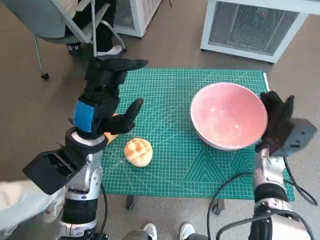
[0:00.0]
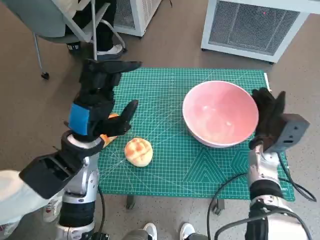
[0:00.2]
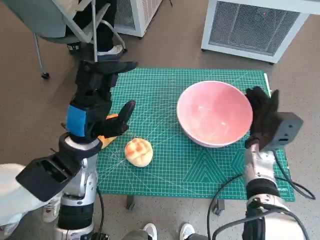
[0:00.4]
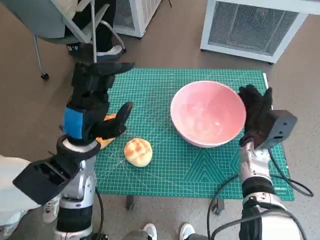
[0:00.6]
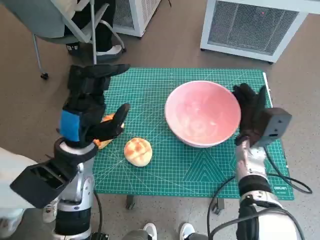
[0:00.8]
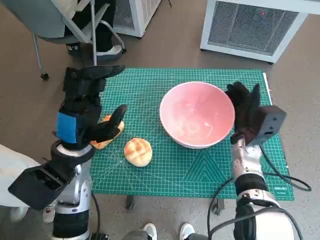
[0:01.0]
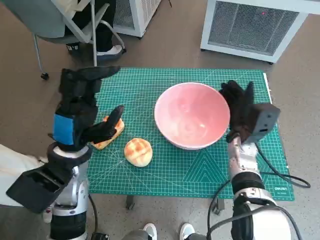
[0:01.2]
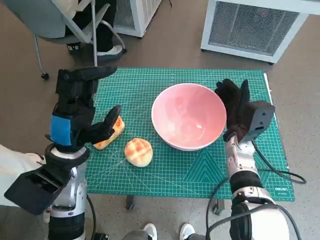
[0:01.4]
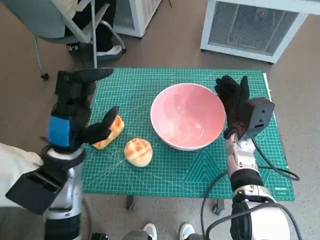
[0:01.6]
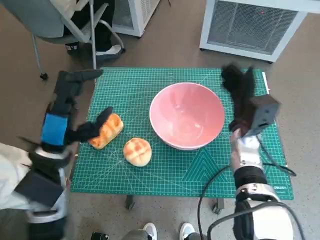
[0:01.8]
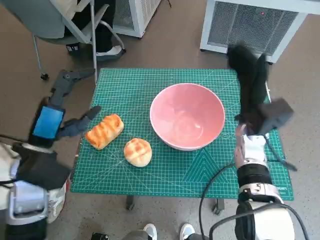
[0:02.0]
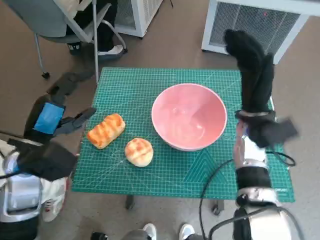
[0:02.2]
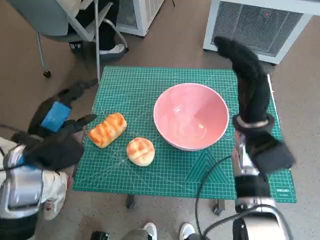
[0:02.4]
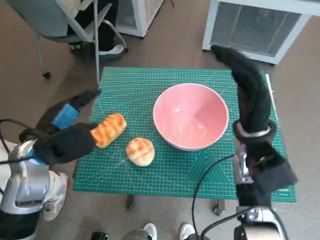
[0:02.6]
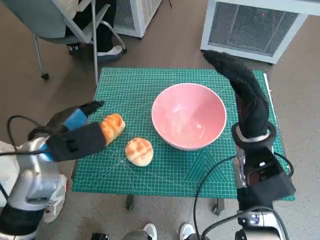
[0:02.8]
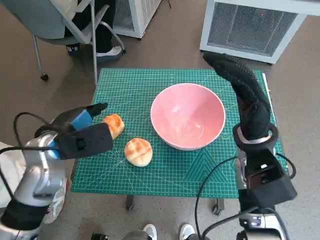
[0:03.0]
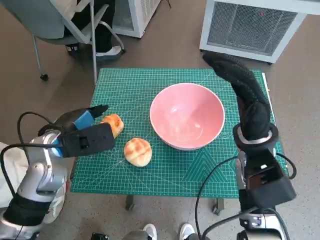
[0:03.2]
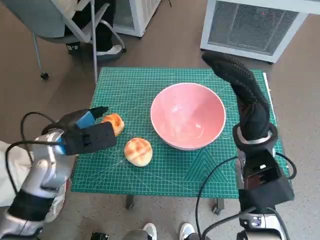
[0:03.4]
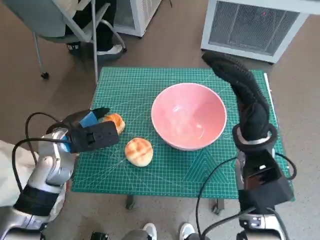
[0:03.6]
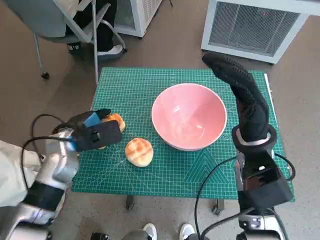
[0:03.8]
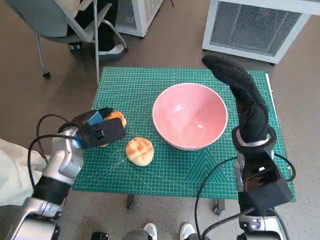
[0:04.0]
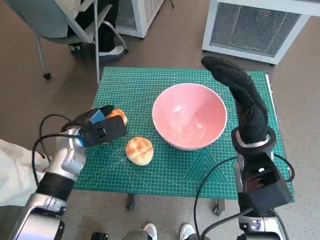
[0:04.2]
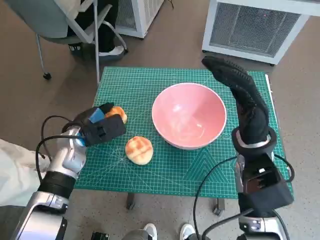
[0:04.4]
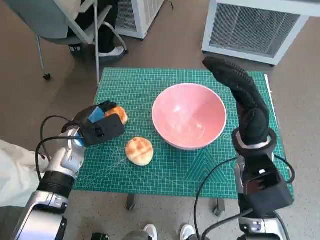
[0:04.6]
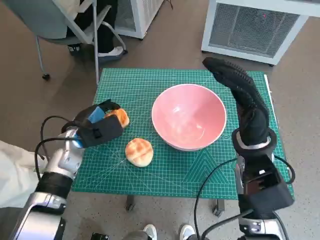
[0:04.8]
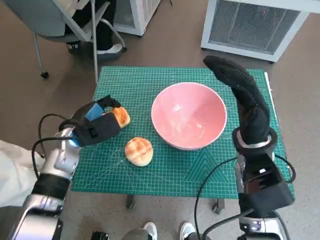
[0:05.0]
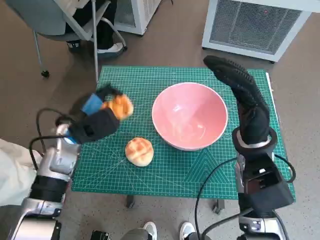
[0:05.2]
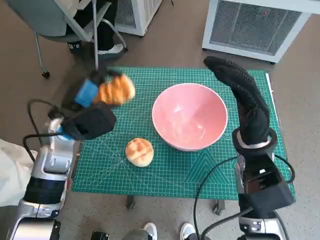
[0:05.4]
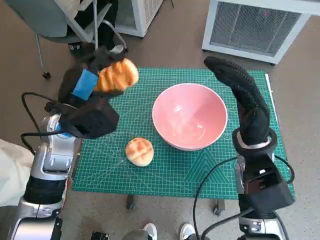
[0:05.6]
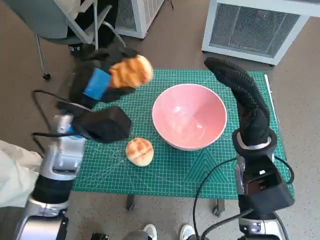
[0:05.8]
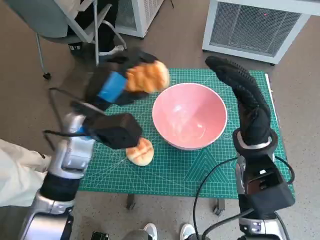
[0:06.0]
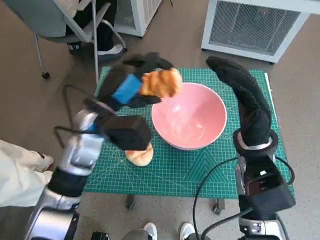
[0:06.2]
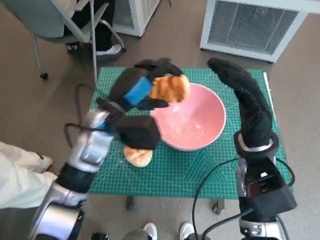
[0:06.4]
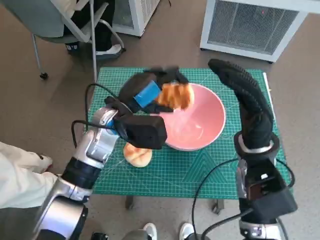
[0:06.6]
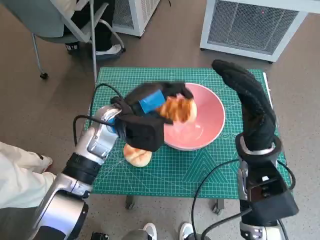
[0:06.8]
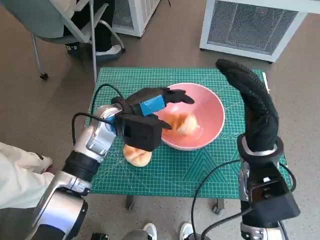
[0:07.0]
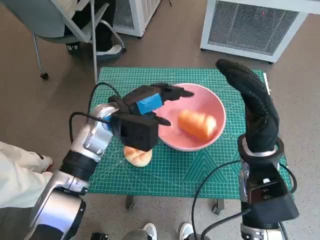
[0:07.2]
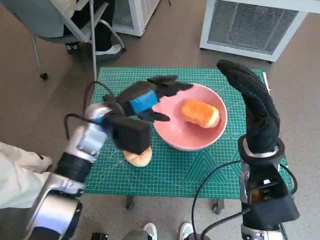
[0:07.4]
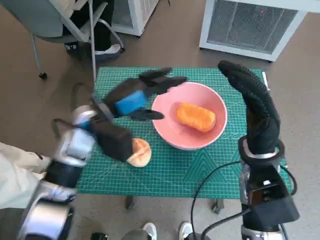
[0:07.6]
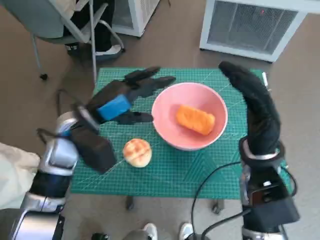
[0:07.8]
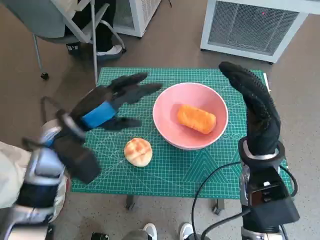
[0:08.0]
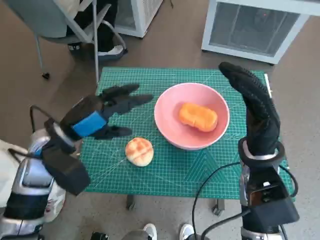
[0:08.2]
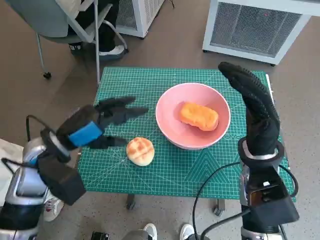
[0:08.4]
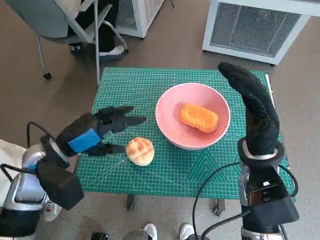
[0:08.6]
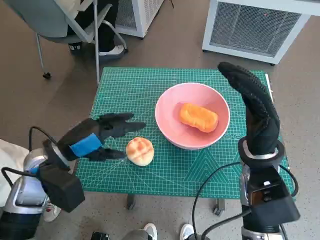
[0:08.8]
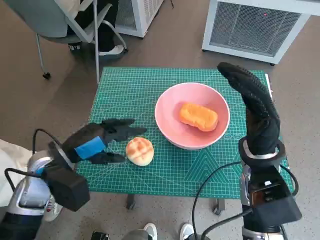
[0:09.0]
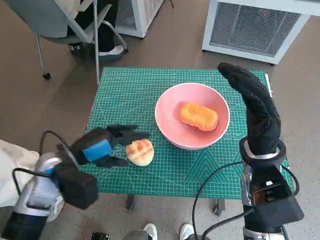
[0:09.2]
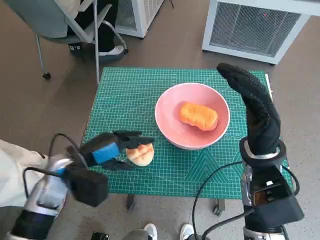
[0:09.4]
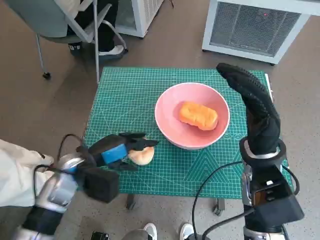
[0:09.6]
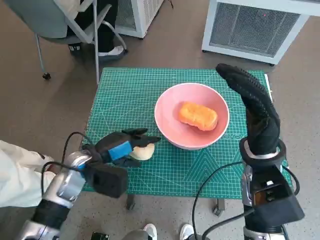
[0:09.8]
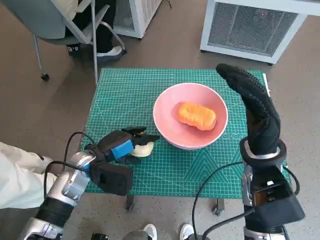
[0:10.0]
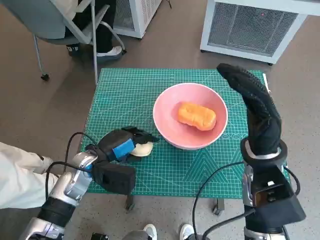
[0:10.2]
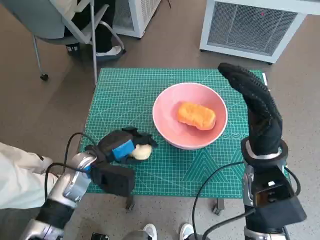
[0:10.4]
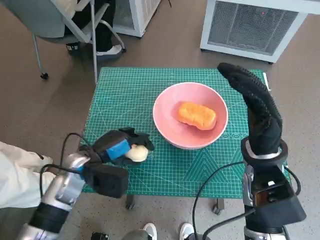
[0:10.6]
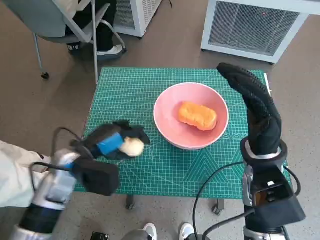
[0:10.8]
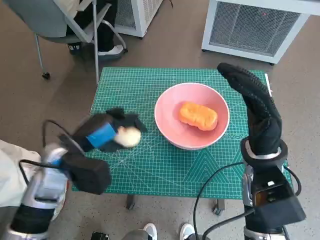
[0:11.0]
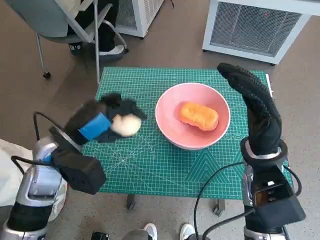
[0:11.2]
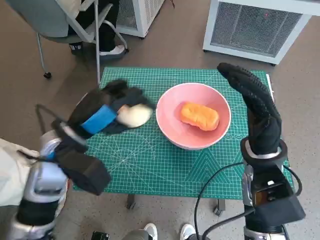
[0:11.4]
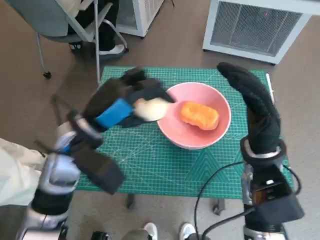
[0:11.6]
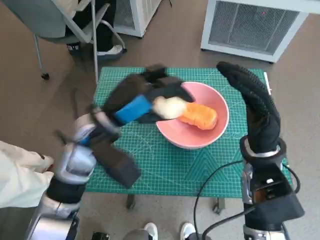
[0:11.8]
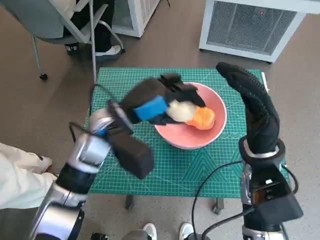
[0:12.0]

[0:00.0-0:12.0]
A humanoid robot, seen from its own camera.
Task of the whole recording: Push the bowl to the center of the table and put the bread into the bowl.
Step, 0:02.0 to 0:04.2: Grasp the long bread with left hand.
Step, 0:04.6 to 0:07.8: Place the long bread in pink bowl with left hand.
Step, 0:08.0 to 0:10.0: Grasp the round bread with left hand.
0:00.0 to 0:01.6: The right hand goes about 5 cm to the left.
0:01.6 to 0:03.0: The right hand travels upward by roughly 10 cm.
0:03.0 to 0:04.4: The left hand is displaced downward and forward by about 10 cm.
0:04.4 to 0:06.0: The left hand is displaced upward and to the right by roughly 10 cm.
0:07.6 to 0:09.0: The left hand moves to the left and backward, approximately 10 cm.
0:09.0 to 0:10.4: The left hand heads downward, covering about 5 cm.
0:10.4 to 0:12.0: The left hand moves upward and to the right, roughly 15 cm.

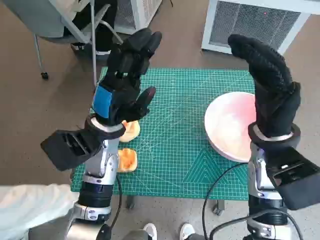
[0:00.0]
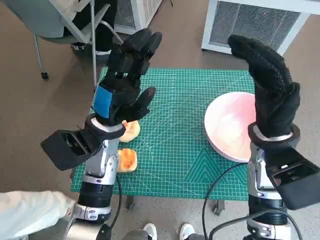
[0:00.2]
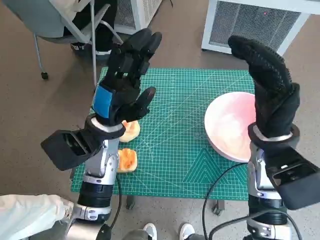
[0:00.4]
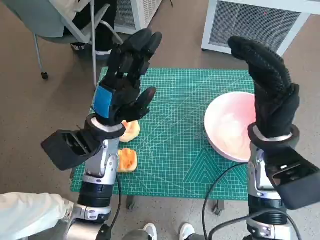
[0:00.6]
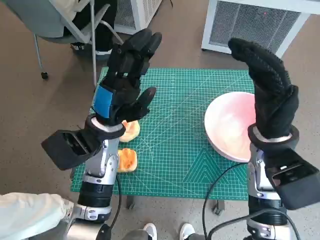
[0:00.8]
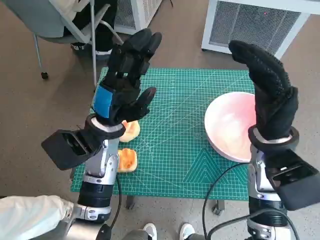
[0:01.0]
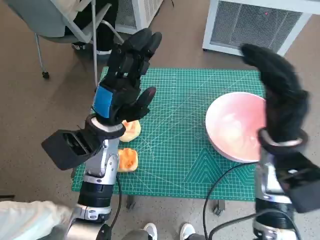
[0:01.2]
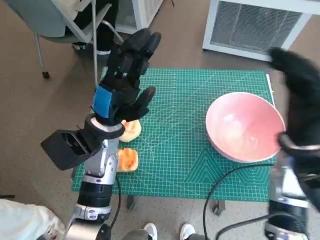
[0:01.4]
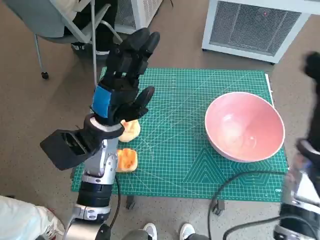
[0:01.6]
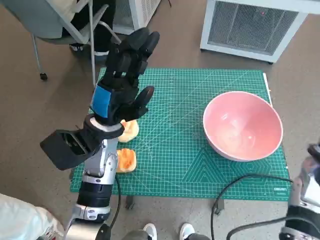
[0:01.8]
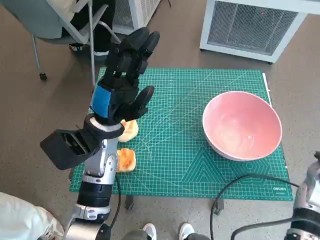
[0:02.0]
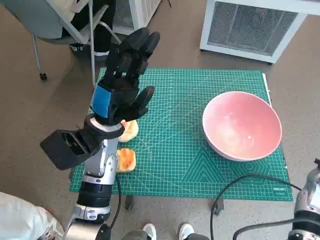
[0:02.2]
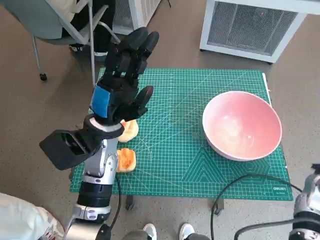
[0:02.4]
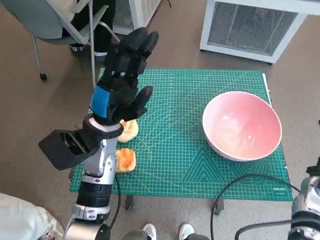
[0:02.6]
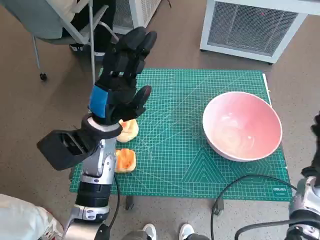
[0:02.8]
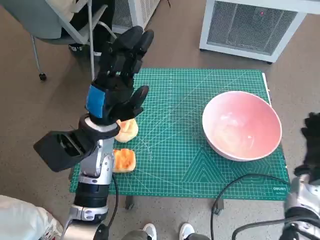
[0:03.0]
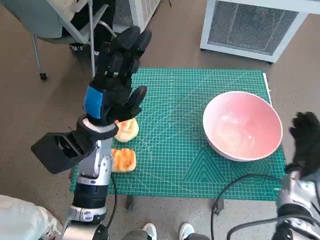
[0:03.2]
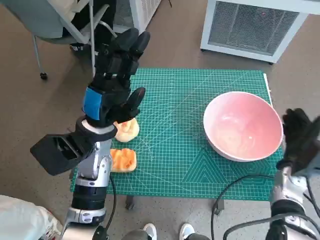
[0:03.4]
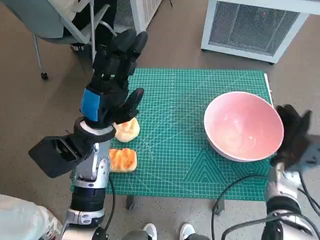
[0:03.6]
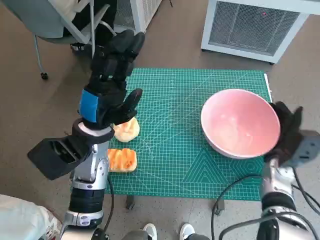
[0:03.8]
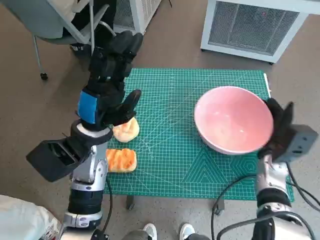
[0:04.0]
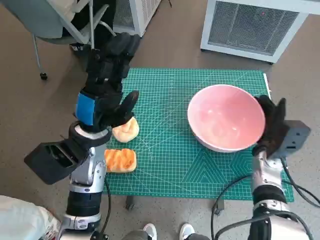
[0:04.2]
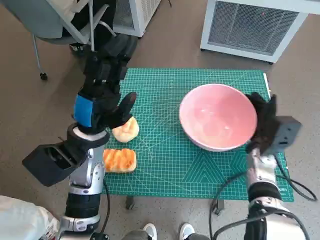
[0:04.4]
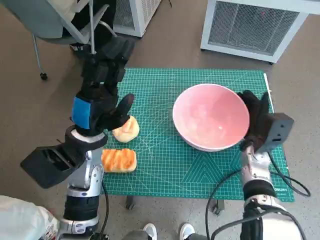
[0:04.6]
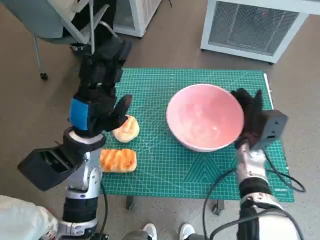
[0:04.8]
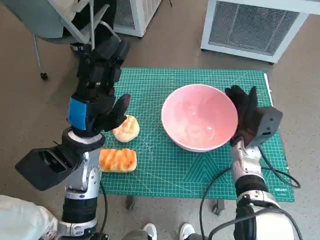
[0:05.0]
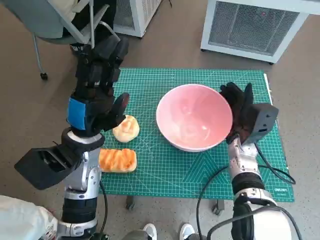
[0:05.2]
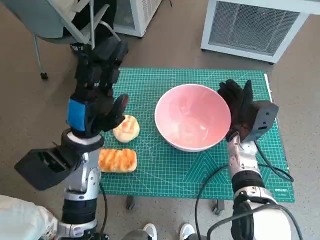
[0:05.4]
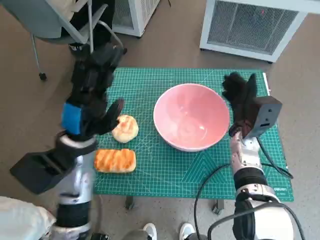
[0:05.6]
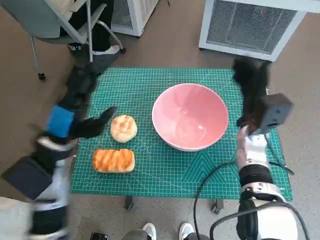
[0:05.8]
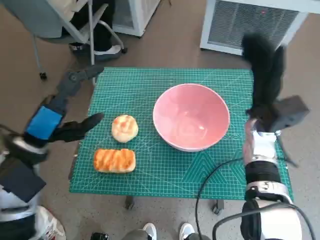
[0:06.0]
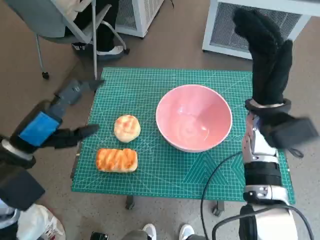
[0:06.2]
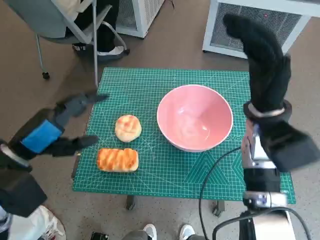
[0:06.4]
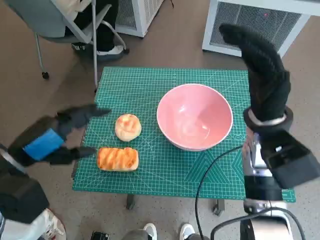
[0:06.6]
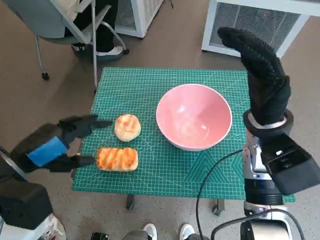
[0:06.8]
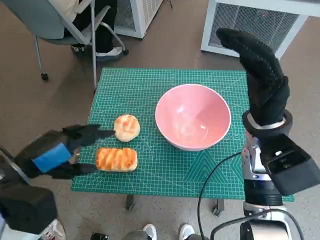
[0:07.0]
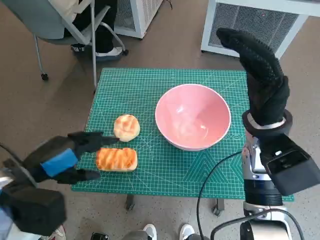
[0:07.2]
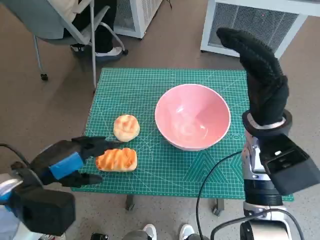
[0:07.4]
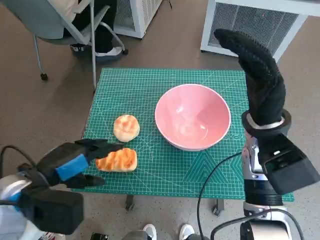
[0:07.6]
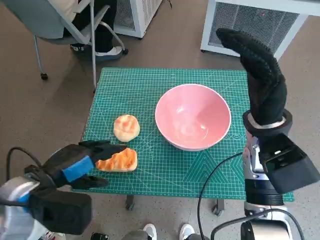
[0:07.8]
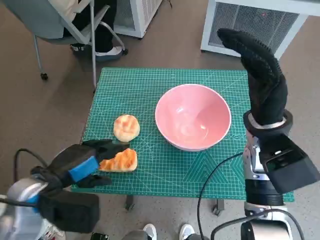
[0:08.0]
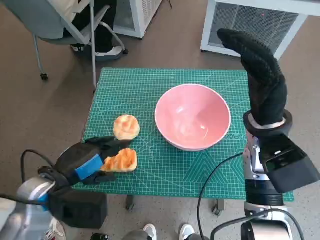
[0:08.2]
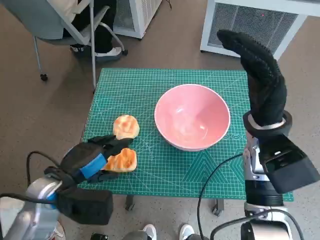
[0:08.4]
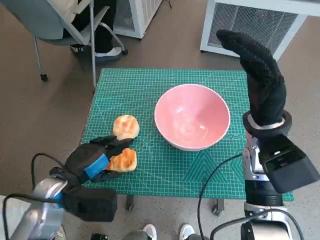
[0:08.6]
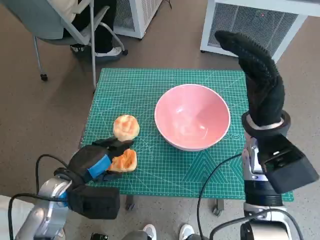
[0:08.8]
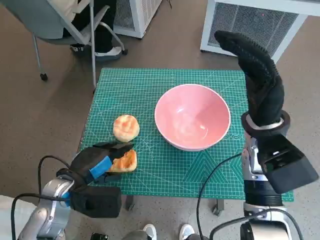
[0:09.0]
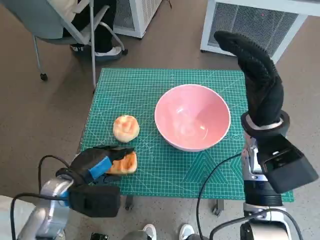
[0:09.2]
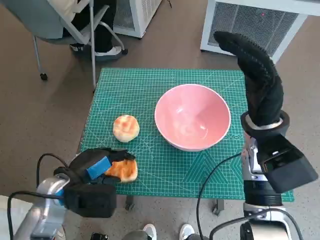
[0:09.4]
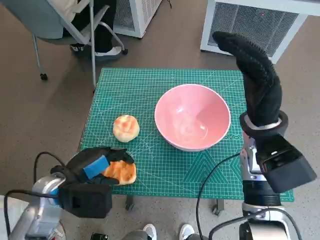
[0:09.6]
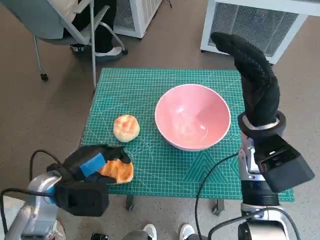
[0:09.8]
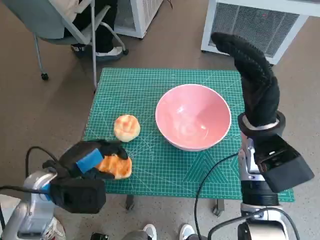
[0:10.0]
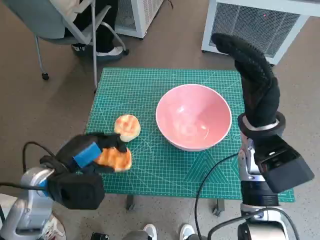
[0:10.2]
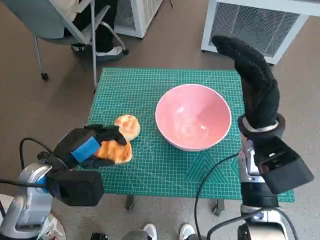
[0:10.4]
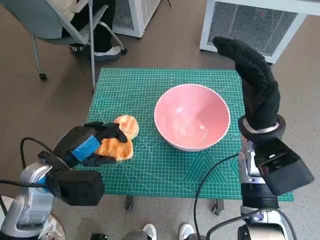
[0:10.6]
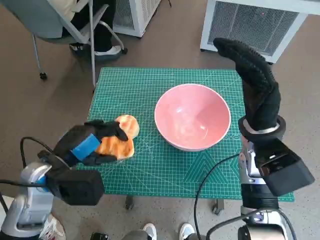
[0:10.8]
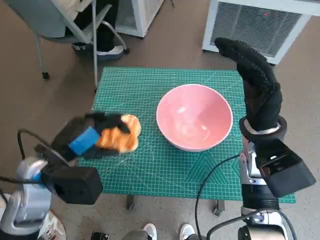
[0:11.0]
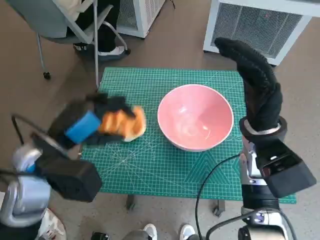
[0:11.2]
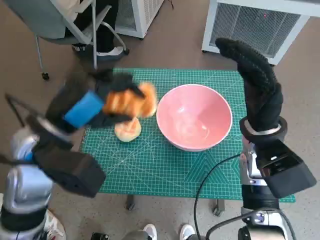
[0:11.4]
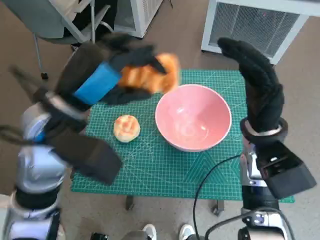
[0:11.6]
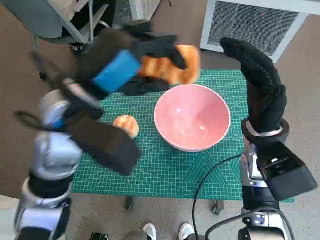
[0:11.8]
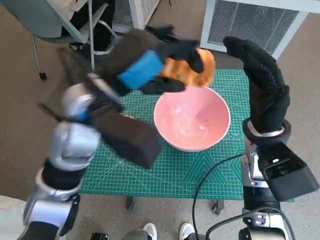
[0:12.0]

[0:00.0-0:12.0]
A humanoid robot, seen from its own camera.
Task of the whole recording: Push the bowl to the center of the table and put the bread into the bowl.
Step, 0:00.0 to 0:06.2: Move the pink bowl to the center of table with right hand.
Step, 0:06.4 to 0:09.6: Grasp the long bread with left hand.
0:01.6 to 0:03.0: The right hand goes roughly 15 cm downward and to the right.
0:03.0 to 0:04.4: The right hand heads to the left and forward, covering about 10 cm.
0:04.4 to 0:06.0: The left hand goes approximately 10 cm to the left. The right hand goes roughly 10 cm upward.
0:06.0 to 0:07.6: The right hand shifts roughly 5 cm upward.
0:07.6 to 0:09.0: The left hand shifts roughly 10 cm downward.
0:09.0 to 0:10.4: The left hand changes place by some 5 cm.
0:10.4 to 0:12.0: The left hand moves upward, to the right and forward, roughly 20 cm.
